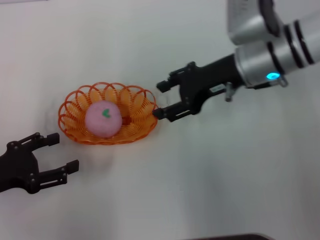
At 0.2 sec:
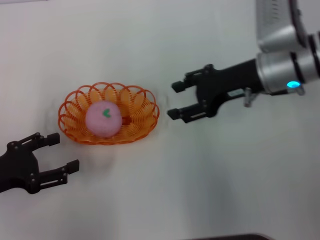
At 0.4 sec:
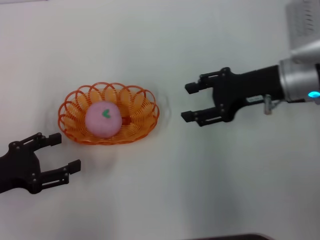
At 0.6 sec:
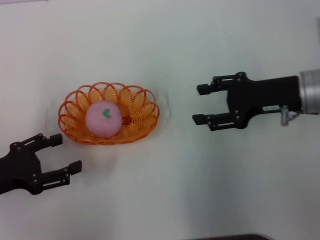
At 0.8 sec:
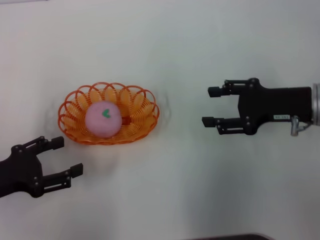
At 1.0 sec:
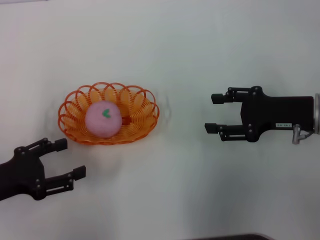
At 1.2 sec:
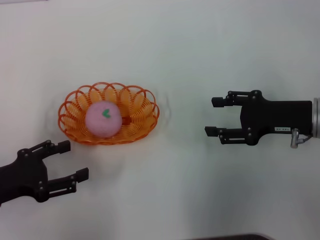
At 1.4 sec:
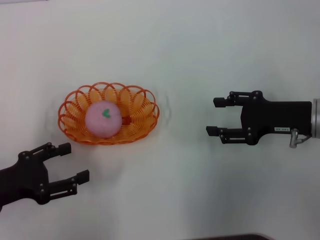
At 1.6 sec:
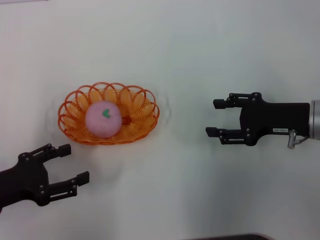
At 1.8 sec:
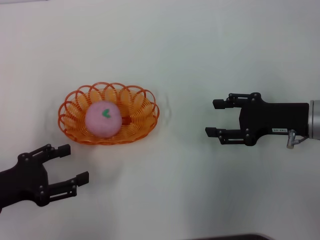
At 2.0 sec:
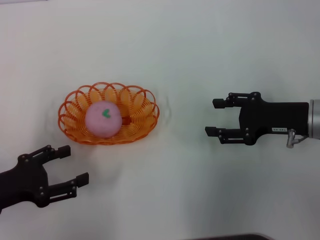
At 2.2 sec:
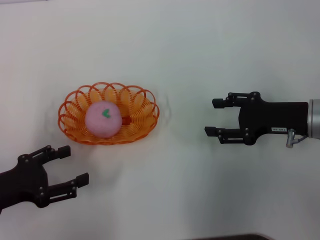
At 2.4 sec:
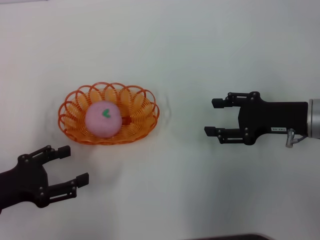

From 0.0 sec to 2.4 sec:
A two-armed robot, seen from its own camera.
From 0.0 sec to 1.2 sec: The right gripper shifts about 15 cm to the right, backward and downward.
From 1.2 sec to 2.4 sec: Both grippers stay about where they are.
